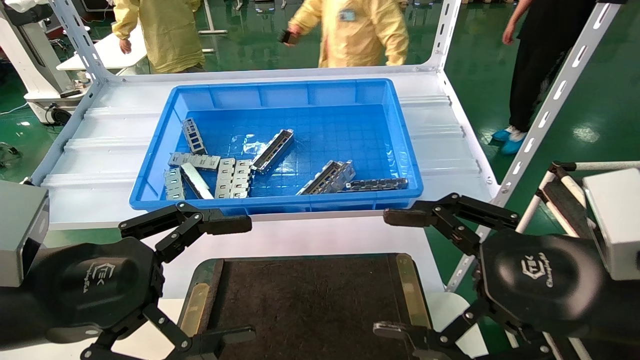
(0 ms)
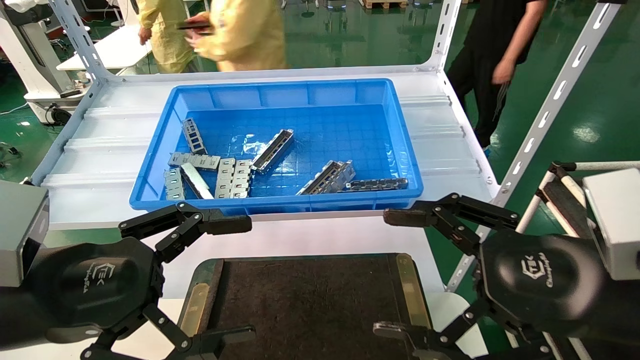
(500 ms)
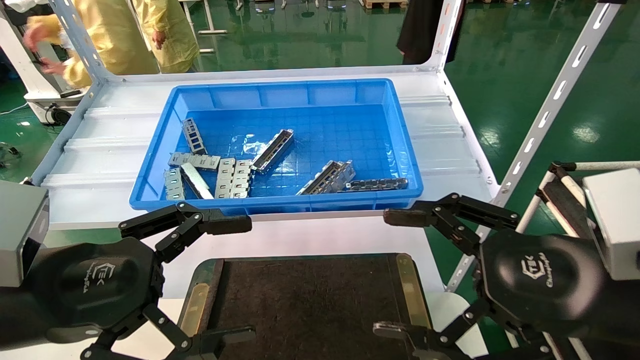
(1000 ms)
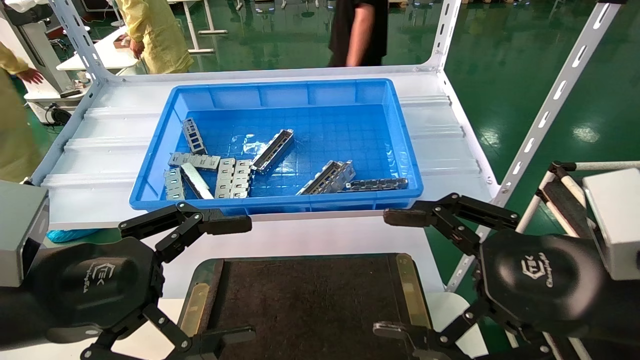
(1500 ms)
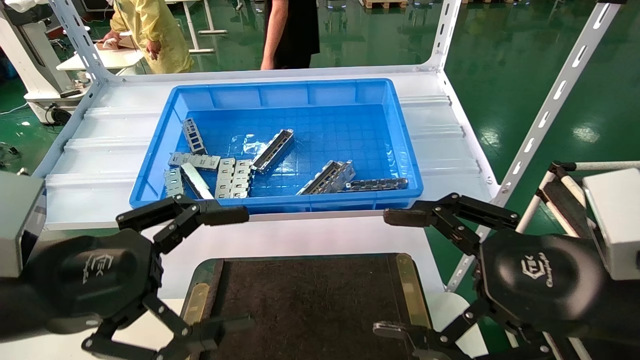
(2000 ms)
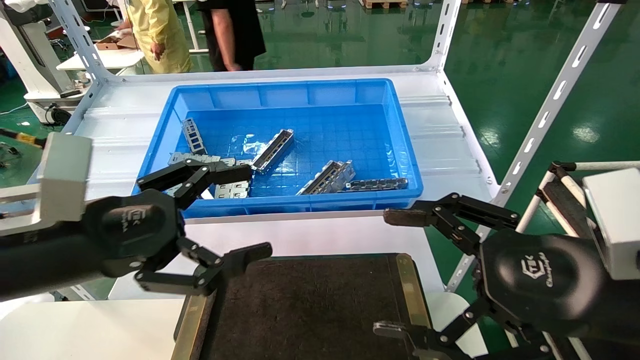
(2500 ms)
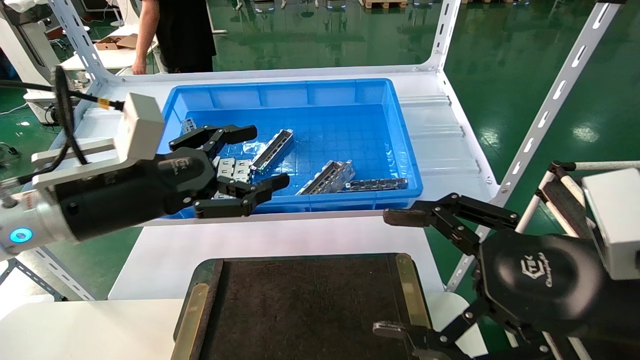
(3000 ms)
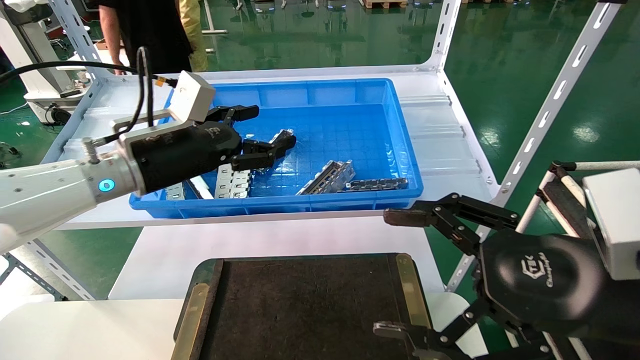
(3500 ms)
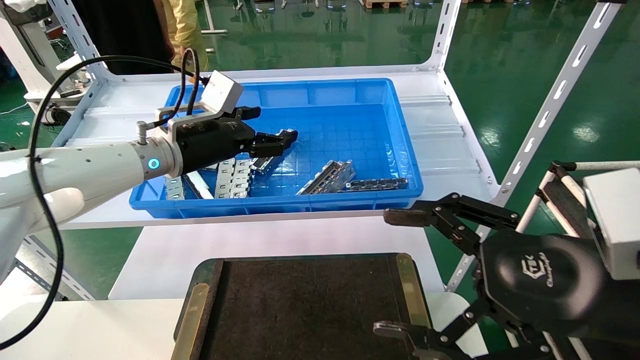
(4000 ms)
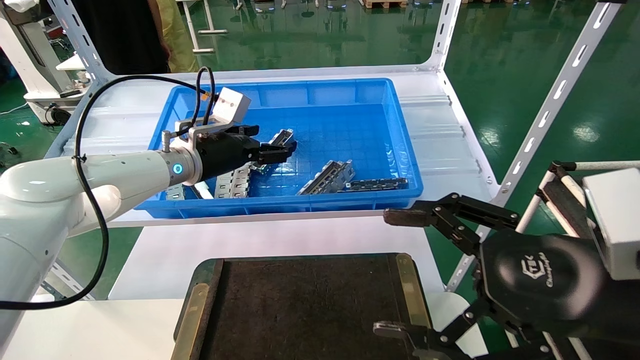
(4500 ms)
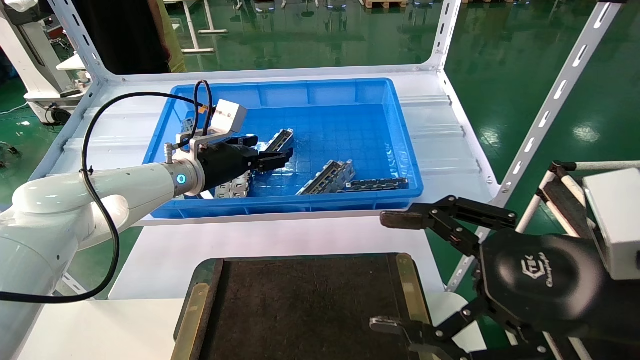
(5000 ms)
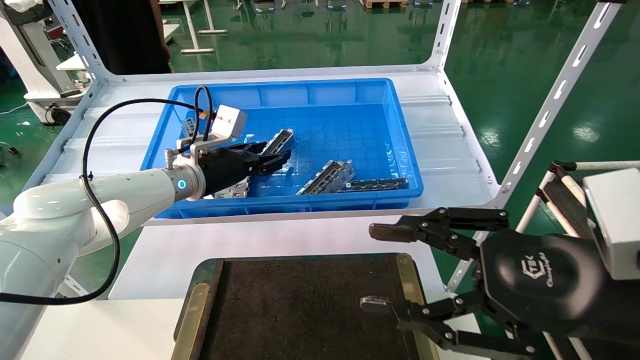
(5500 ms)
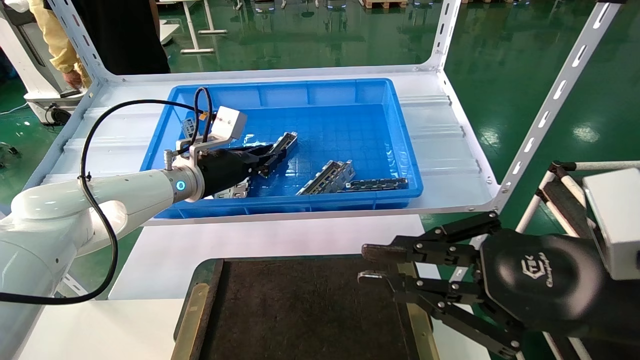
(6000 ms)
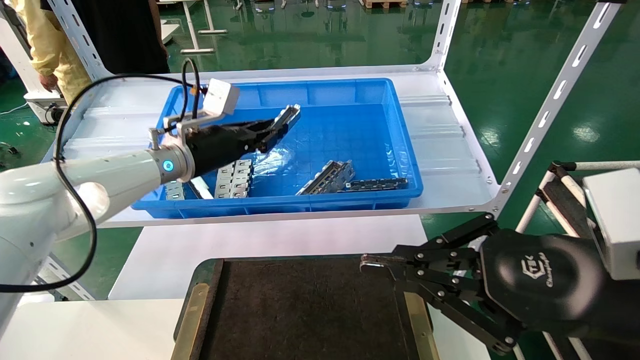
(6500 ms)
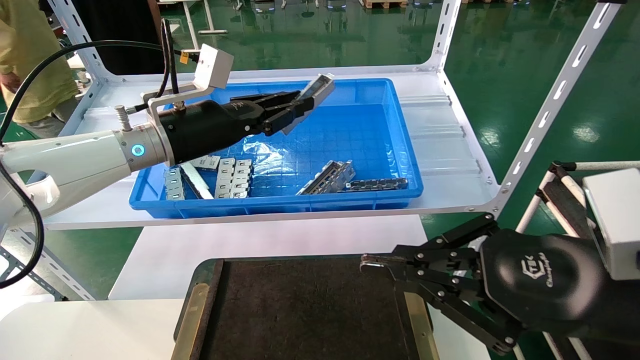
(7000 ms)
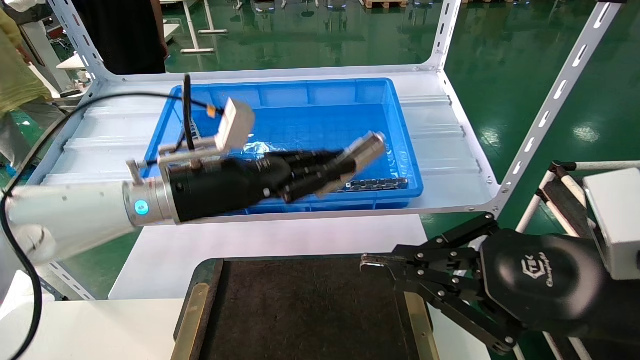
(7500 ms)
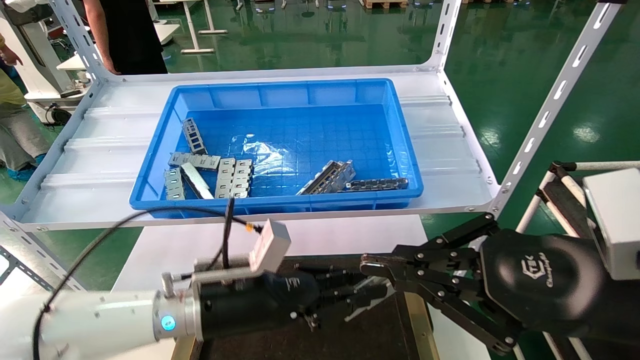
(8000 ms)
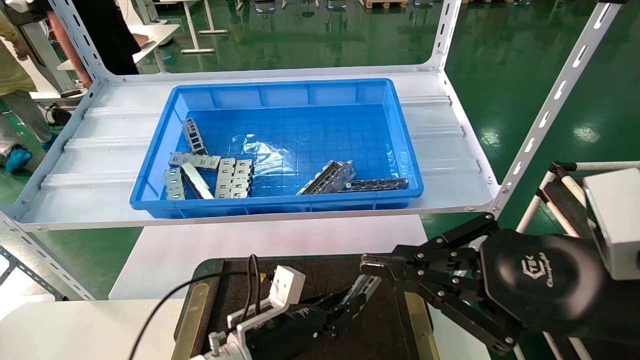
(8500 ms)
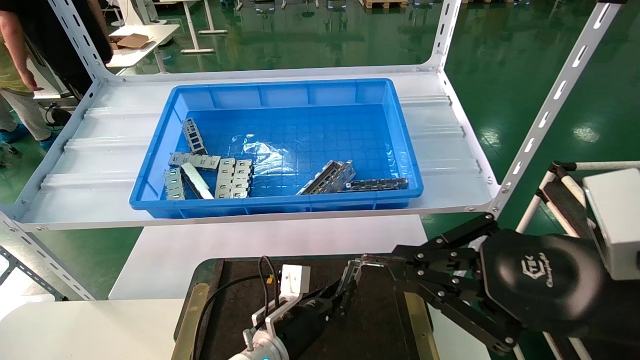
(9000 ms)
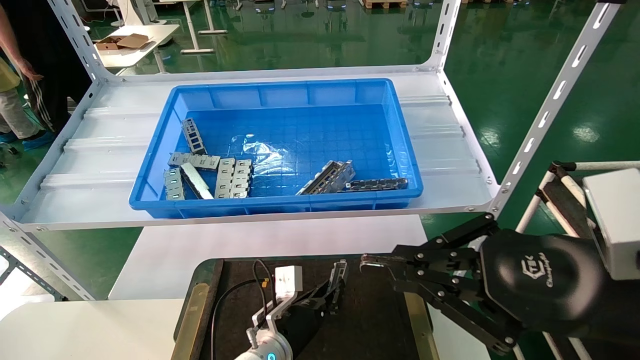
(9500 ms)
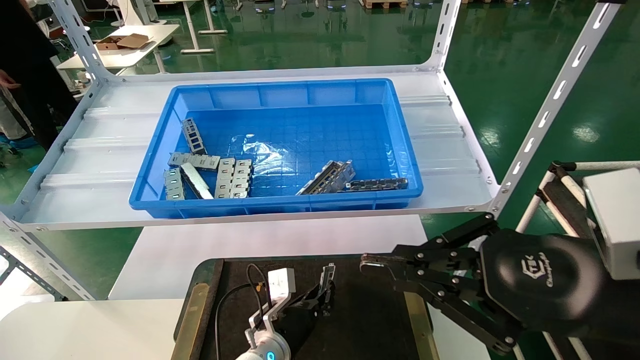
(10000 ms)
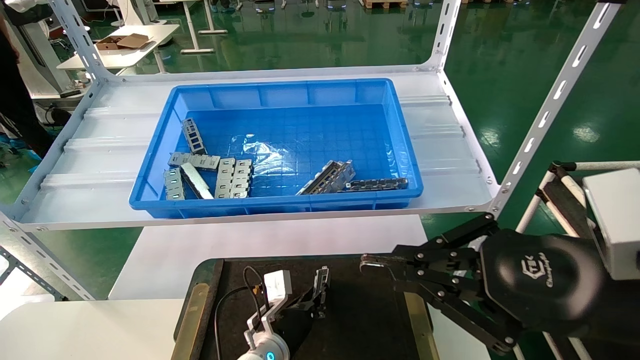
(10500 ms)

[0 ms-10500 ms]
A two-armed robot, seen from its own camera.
Task of the whole recording: Grasp the part with one hand and place it on the black container.
Step, 2500 ms to 7000 ms: Pick up the front USB bracket from the feeding area.
0 ms to 2000 ms: Neither gripper changes place.
2000 ms to 4000 ms: The left gripper heads forward, covering some 25 cm.
4000 ms to 6500 ms: The left gripper closes up. Meanwhile the right gripper closes.
6500 ms to 8500 ms: The left gripper goes approximately 30 cm downward and backward.
8500 ms to 10500 ms: The left gripper travels downward and forward by about 10 cm.

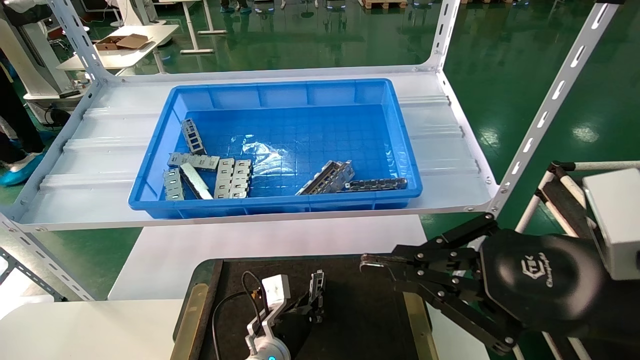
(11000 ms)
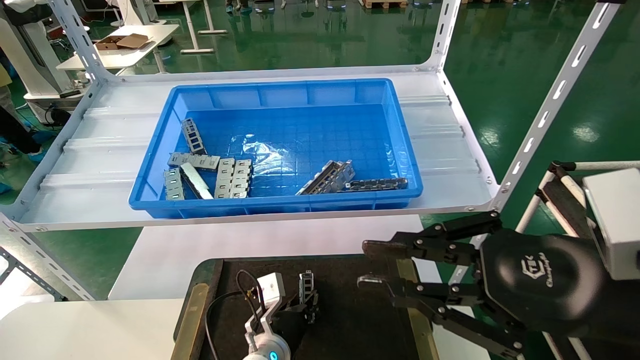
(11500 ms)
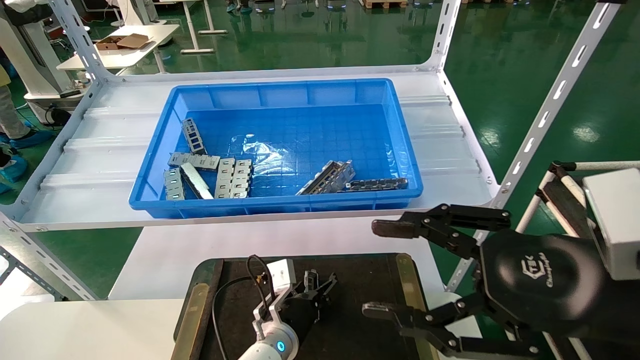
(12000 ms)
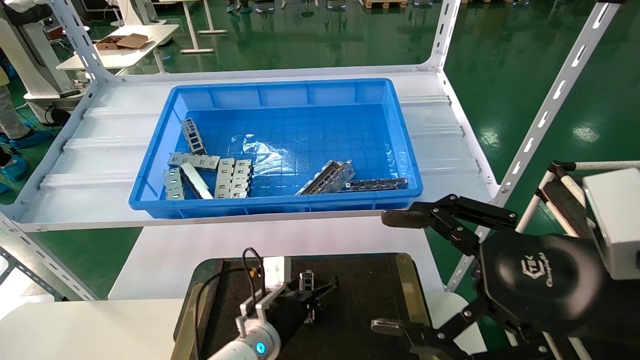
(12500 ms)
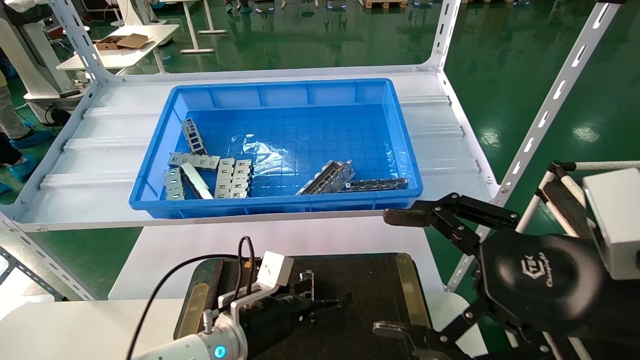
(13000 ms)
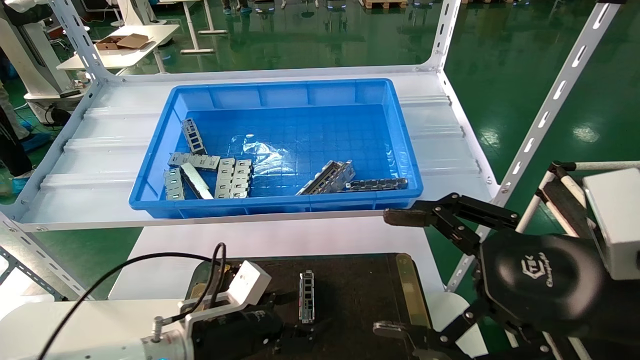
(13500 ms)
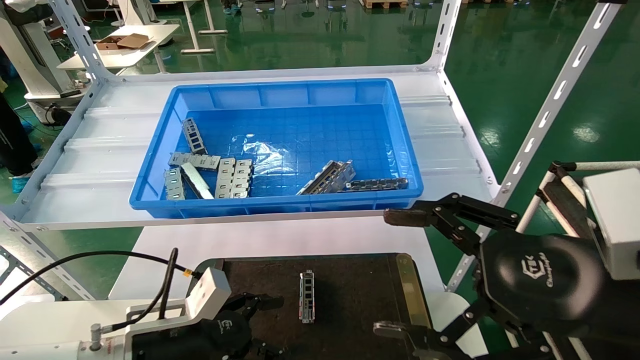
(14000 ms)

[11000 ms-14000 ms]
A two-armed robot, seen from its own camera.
Task of the whole recording: Grasp the part with one hand and place it on the black container.
11000 ms to 12500 ms: The left gripper moves upward, about 5 cm, and opens its fingers, while the right gripper opens up.
12500 ms to 14000 ms: The left gripper moves to the left, backward and upward, roughly 20 cm.
